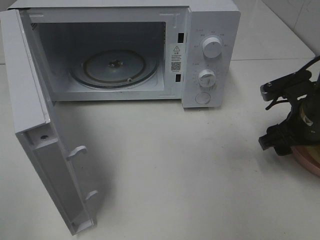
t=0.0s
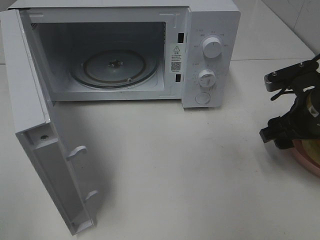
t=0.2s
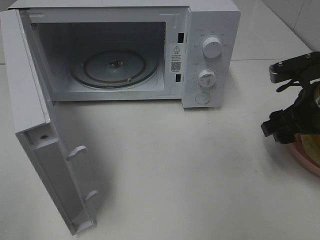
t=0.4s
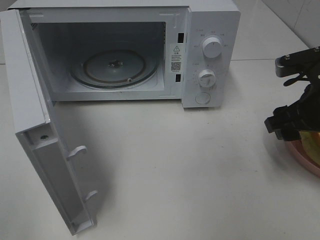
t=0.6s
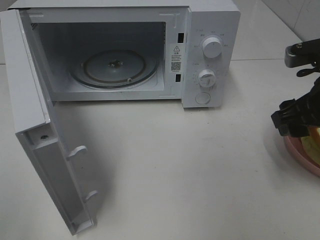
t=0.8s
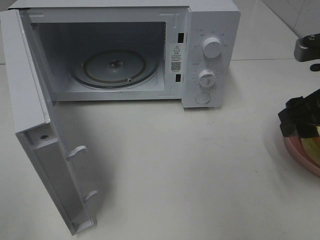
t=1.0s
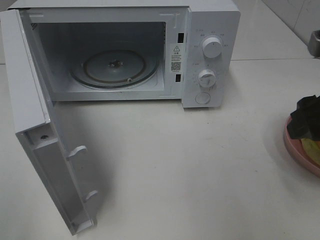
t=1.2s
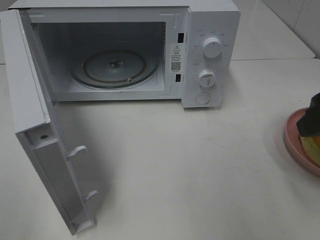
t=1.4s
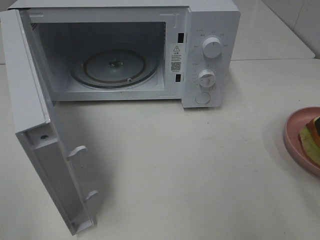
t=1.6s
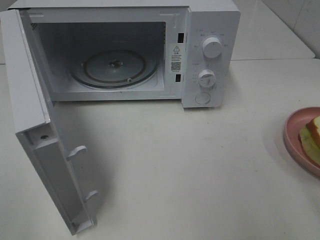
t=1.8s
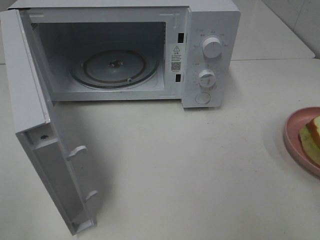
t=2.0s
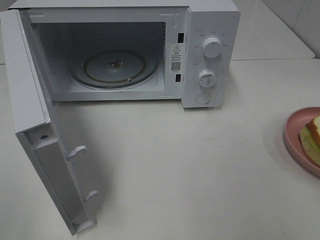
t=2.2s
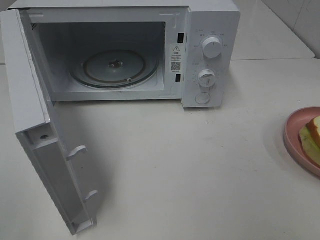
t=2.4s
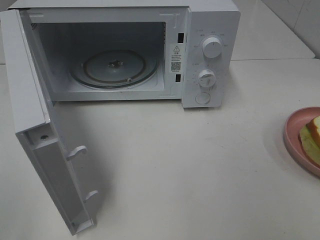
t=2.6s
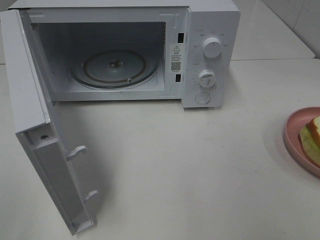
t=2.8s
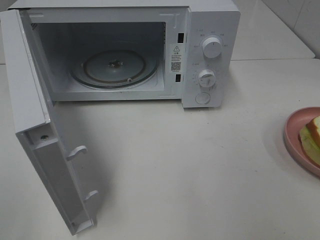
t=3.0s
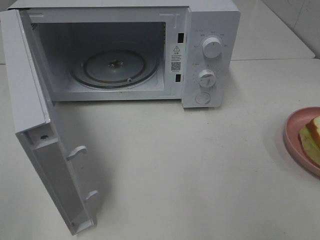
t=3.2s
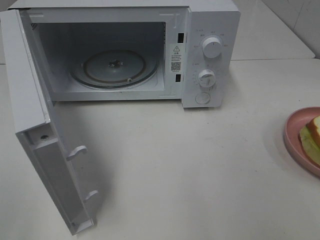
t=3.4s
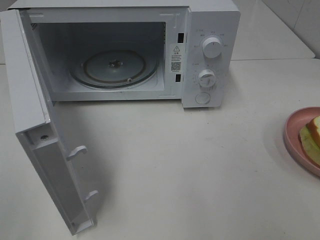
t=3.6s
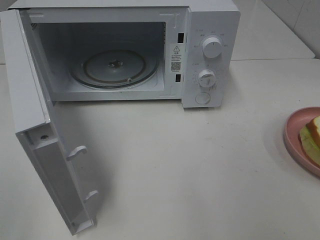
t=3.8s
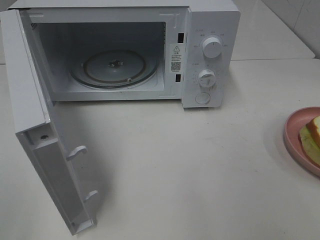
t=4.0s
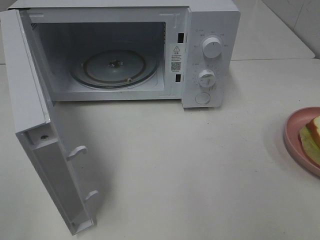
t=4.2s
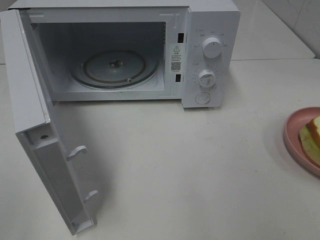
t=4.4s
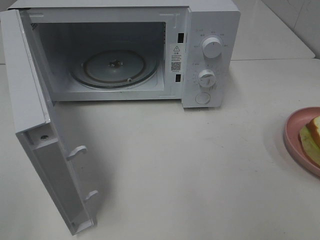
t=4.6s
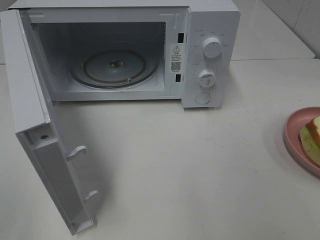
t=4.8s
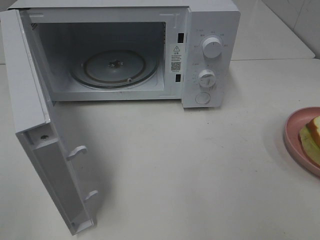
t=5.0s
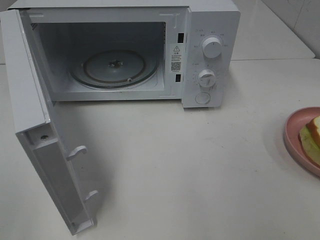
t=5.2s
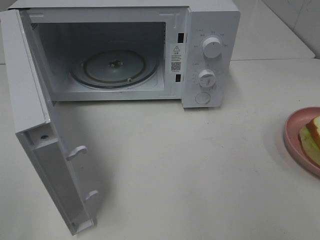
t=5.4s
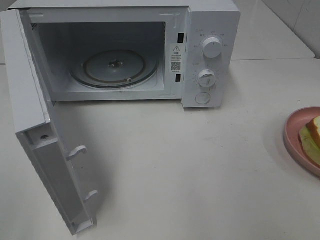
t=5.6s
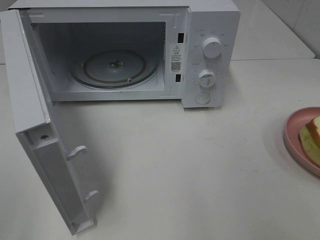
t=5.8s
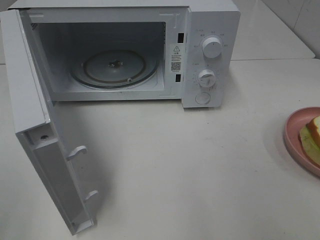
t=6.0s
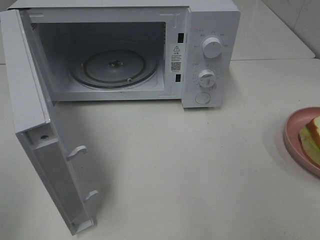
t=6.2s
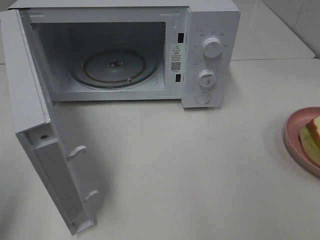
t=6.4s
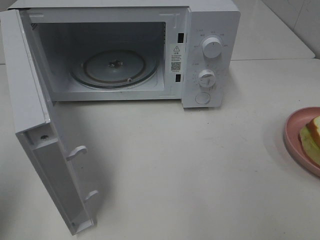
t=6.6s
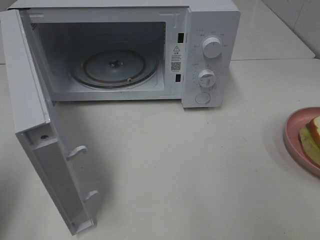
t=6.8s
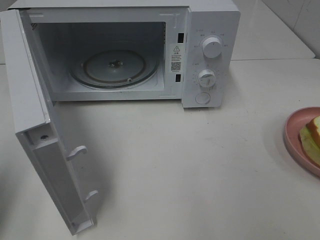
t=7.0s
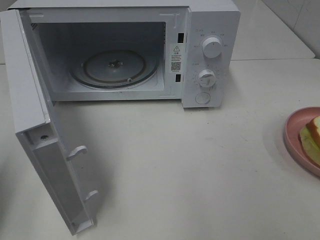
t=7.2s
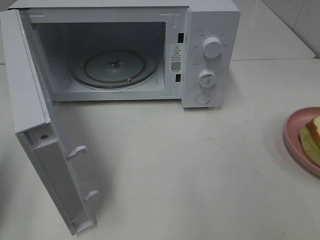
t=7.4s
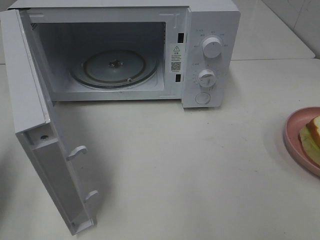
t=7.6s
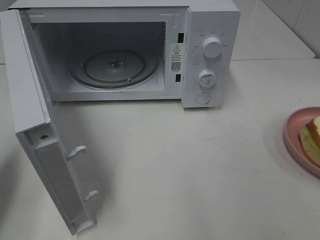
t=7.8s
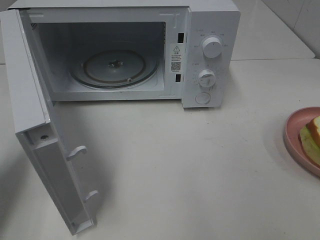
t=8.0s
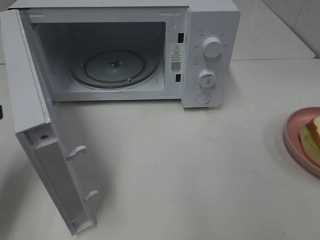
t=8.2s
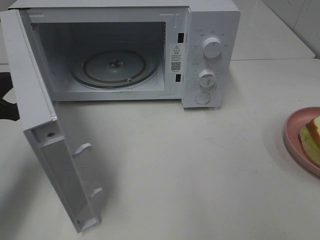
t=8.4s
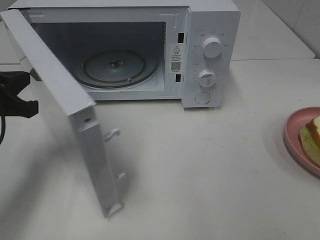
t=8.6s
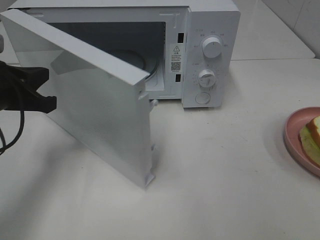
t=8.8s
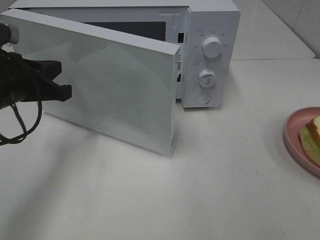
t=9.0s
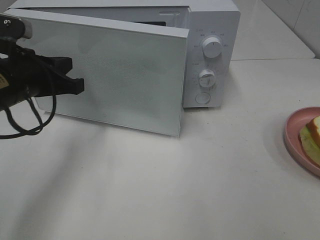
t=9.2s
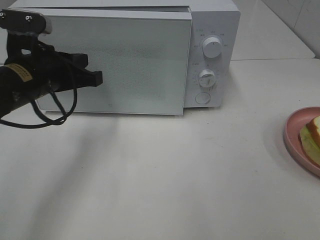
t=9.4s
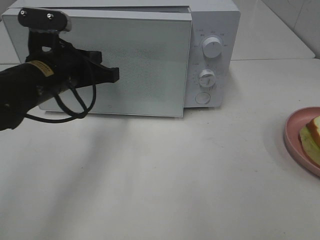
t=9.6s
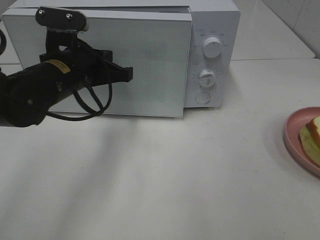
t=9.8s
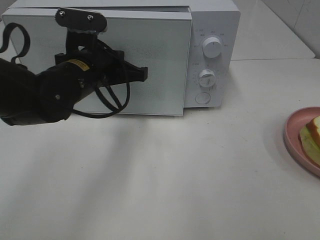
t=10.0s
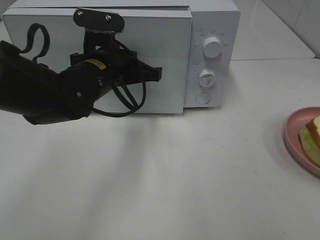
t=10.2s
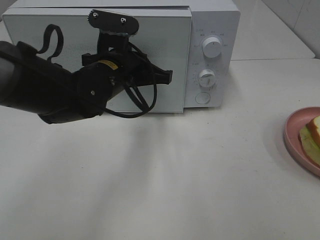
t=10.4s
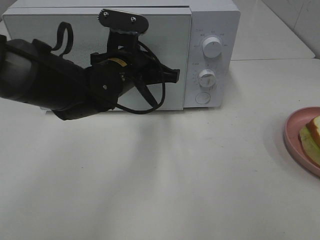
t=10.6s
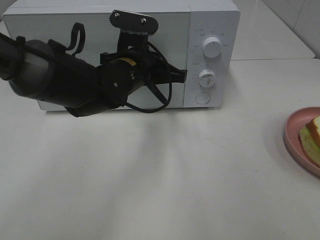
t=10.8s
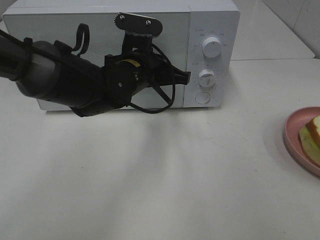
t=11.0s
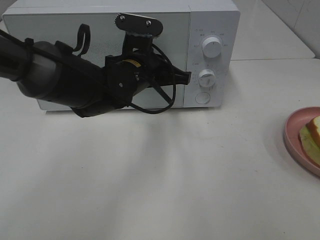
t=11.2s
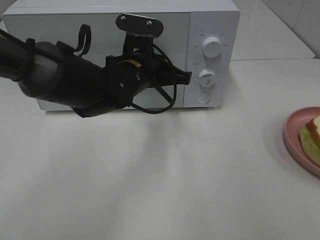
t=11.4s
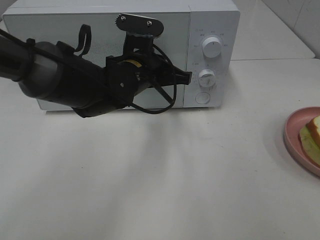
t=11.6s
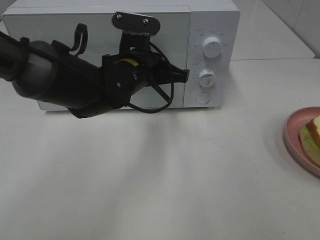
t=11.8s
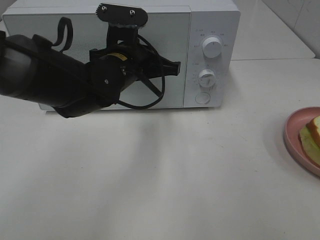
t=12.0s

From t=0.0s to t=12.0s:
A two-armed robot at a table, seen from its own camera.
Task of the whole recording: Heat Sandwich.
Step, from t=0.6s to t=11.8s: Left hand: close the microwave door.
From t=0.0s to t=1.6s: The right gripper travels upward and backward by approximately 20 cm.
From t=6.0s to t=7.6s: The left gripper travels forward and downward by roughly 15 cm, and closes its fingers.
From t=7.6s to t=9.0s: The left gripper heads to the right and forward, covering approximately 15 cm.
From t=9.0s to t=10.4s: The left gripper goes approximately 15 cm to the right.
From t=10.4s to t=12.0s: The grippers move only a little.

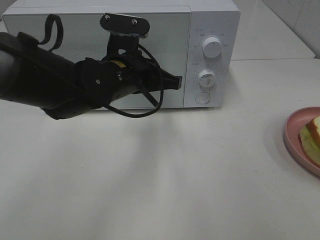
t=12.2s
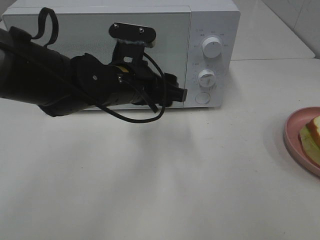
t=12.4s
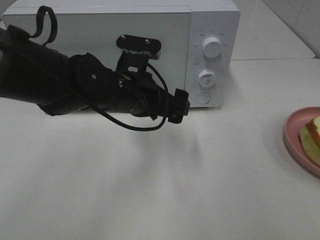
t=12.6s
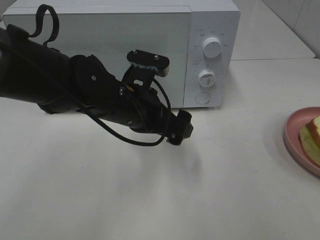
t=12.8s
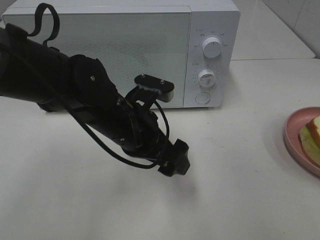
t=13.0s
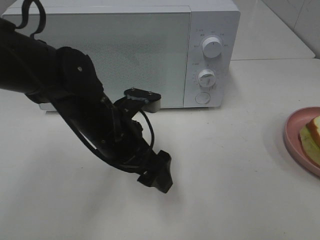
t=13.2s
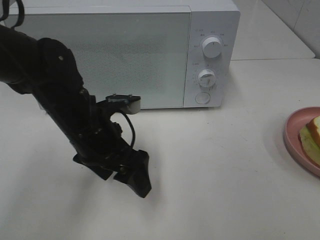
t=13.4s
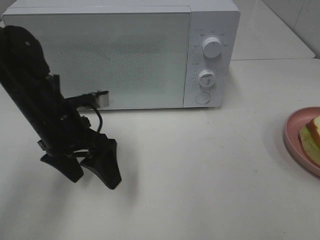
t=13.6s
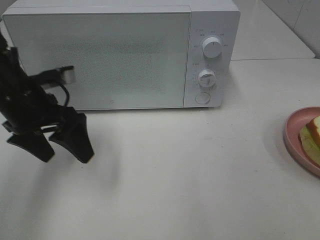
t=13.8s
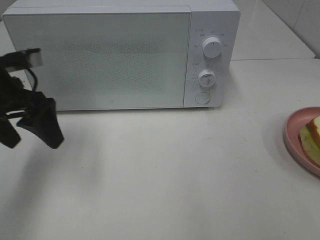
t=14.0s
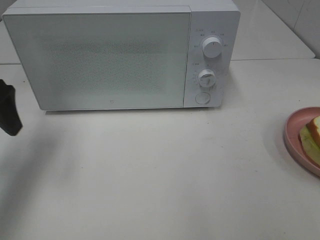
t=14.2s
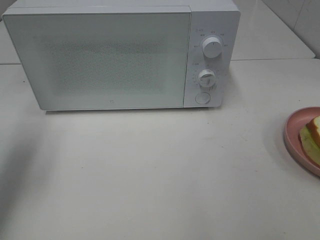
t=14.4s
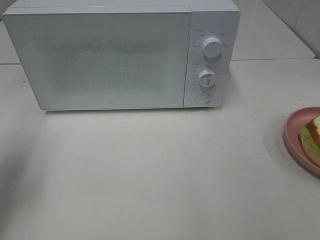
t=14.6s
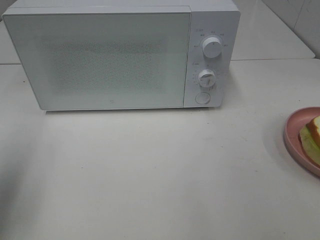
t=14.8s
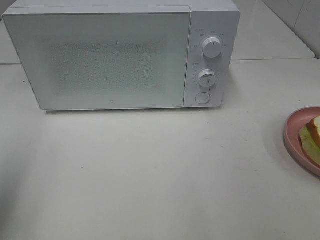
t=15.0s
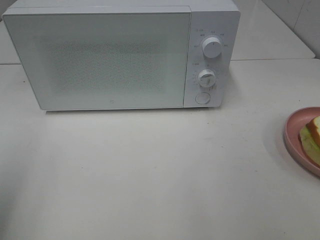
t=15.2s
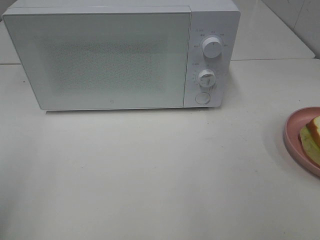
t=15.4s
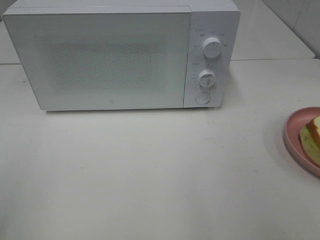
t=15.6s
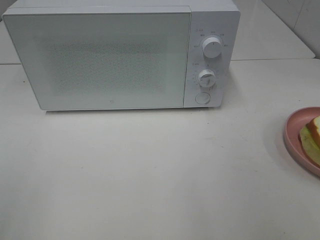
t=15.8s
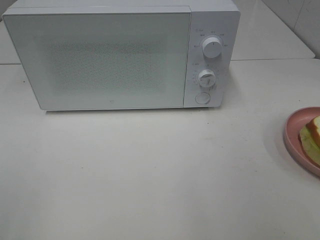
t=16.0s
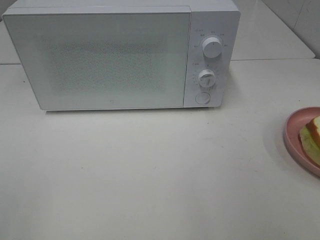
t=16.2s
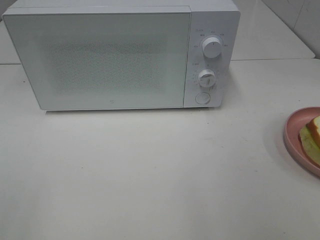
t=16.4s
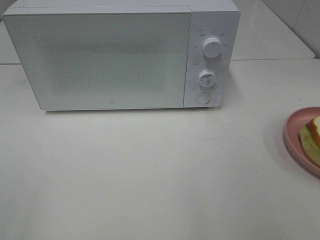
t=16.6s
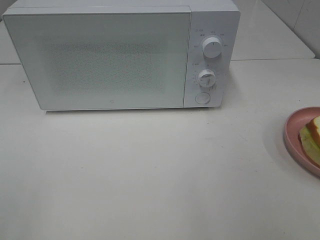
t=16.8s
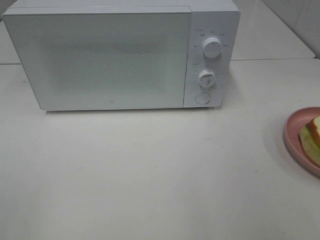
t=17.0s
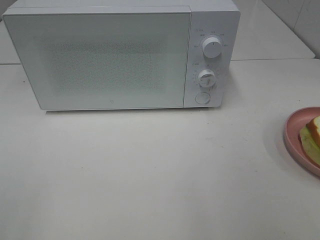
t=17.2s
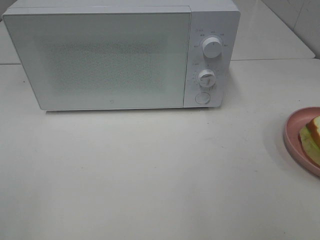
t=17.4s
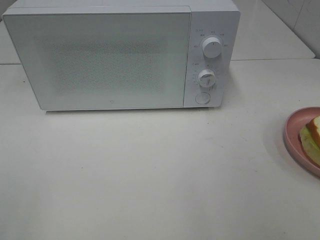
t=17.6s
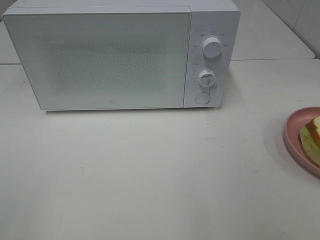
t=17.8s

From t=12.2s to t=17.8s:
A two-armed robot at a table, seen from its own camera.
Task of the whole recording: Heat Sandwich.
From t=12.2s to t=13.6s: The left gripper shifts roughly 10 cm to the left, and opens up.
From t=13.6s to t=15.0s: The left gripper goes roughly 25 cm to the left, upward and backward.
From t=15.0s to t=16.4s: The left gripper goes some 15 cm backward.
From t=16.4s to t=17.8s: Neither gripper changes place.

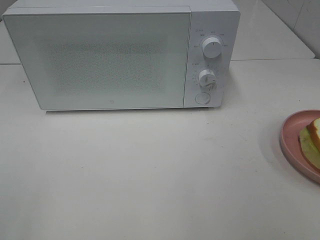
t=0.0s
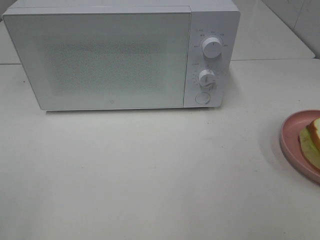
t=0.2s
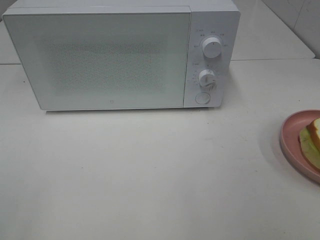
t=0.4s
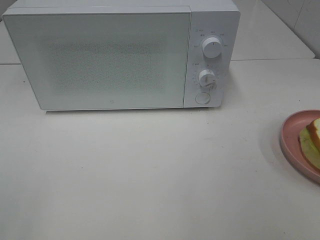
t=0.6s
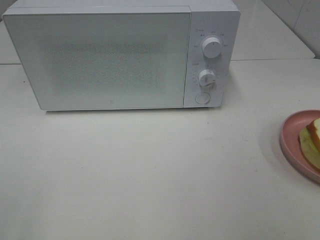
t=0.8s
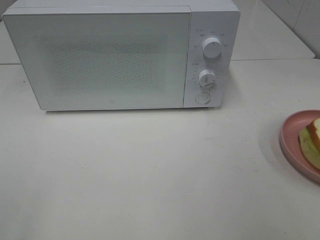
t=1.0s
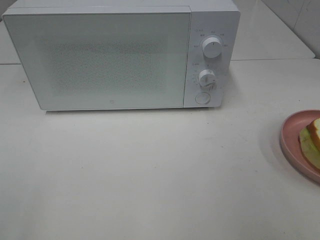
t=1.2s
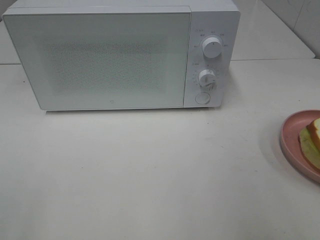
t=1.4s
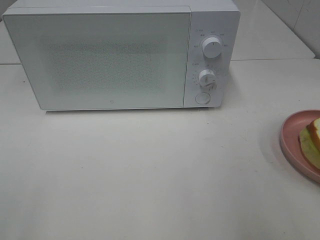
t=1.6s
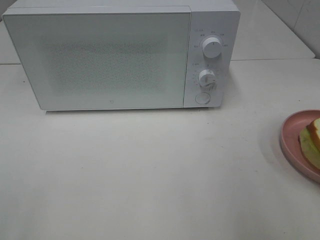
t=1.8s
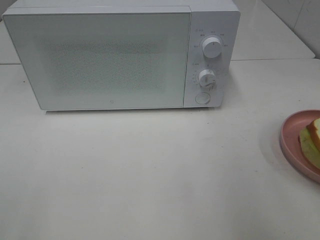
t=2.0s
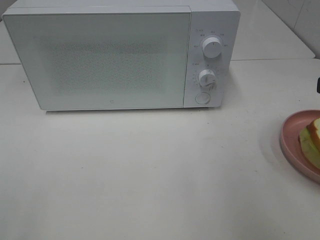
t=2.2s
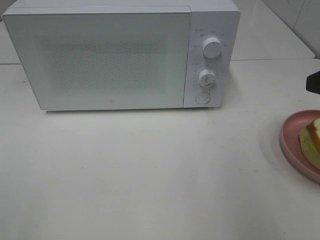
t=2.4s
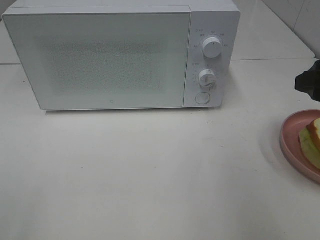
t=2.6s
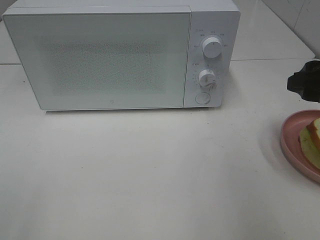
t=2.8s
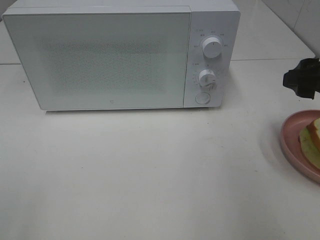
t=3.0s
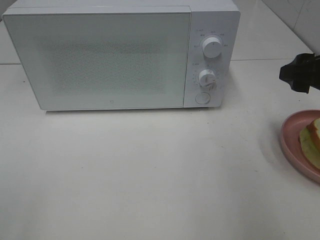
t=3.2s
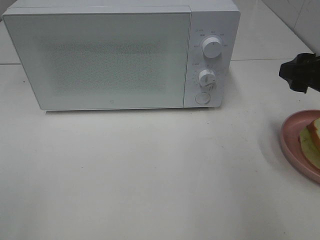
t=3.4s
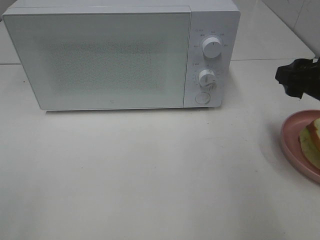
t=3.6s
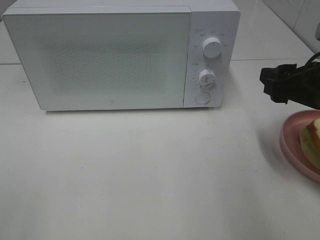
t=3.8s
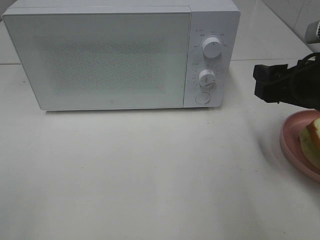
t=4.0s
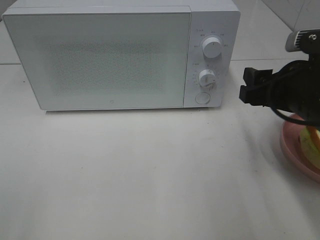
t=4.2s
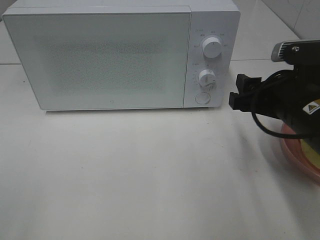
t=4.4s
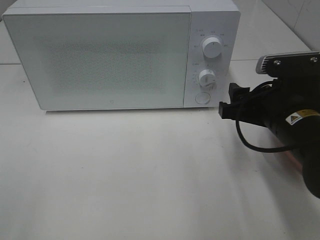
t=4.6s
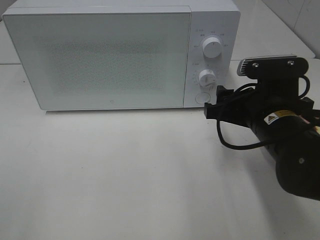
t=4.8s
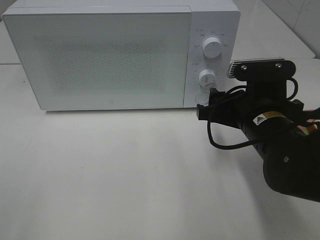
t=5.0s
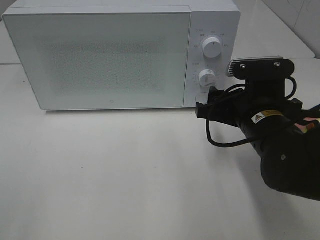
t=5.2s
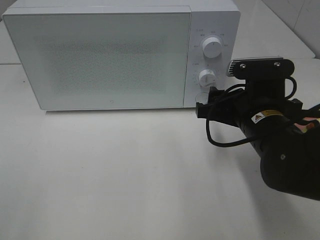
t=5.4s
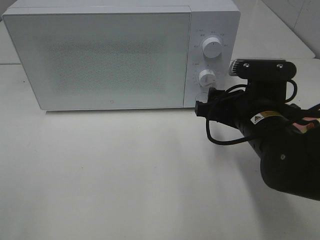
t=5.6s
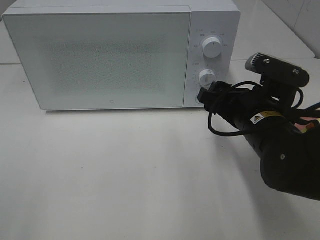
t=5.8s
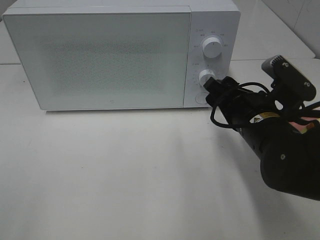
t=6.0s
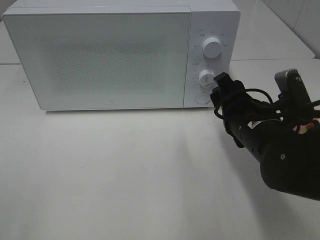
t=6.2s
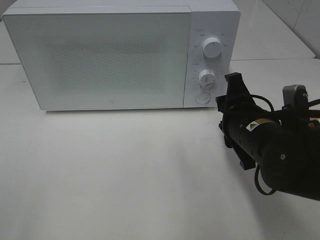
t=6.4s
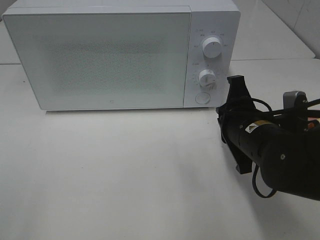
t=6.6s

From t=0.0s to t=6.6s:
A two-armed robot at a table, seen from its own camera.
Task of the whole recording: Heat Sandwich.
From t=1.6s to t=3.2s: The right gripper goes about 15 cm forward and downward.
From t=3.2s to t=5.0s: The right gripper moves to the left and downward, roughly 15 cm.
From t=5.0s to t=6.6s: The right gripper closes.
